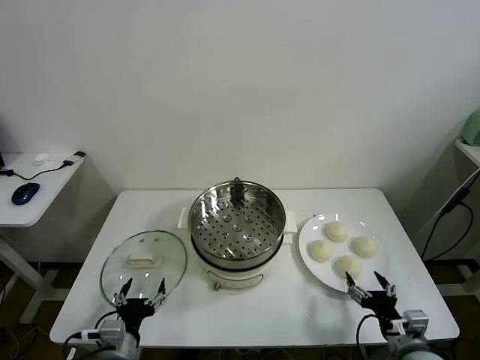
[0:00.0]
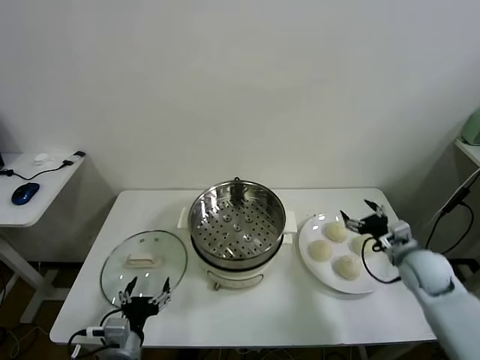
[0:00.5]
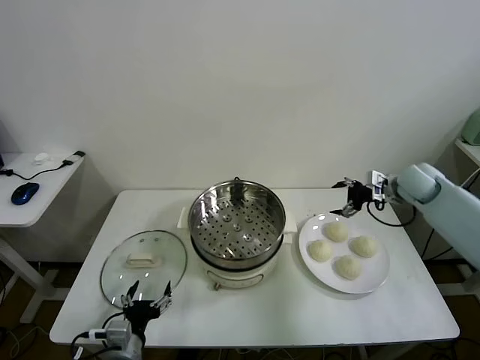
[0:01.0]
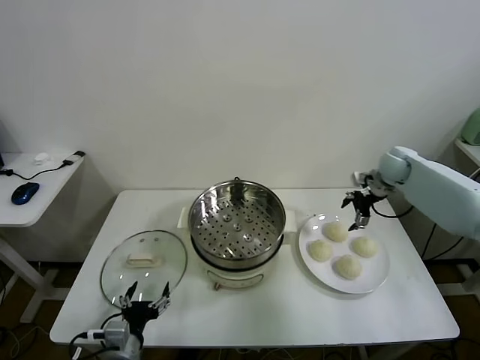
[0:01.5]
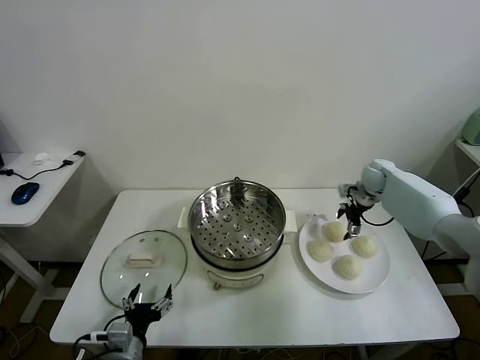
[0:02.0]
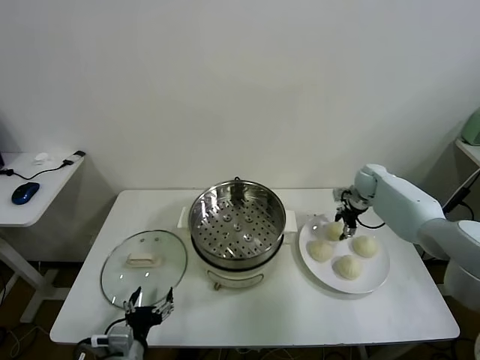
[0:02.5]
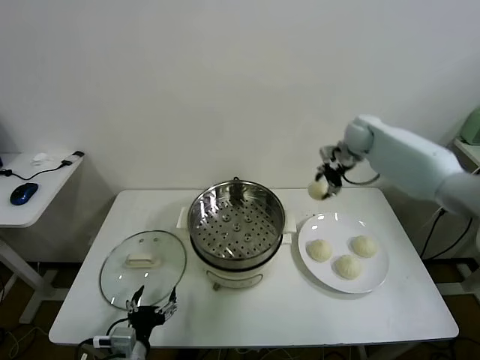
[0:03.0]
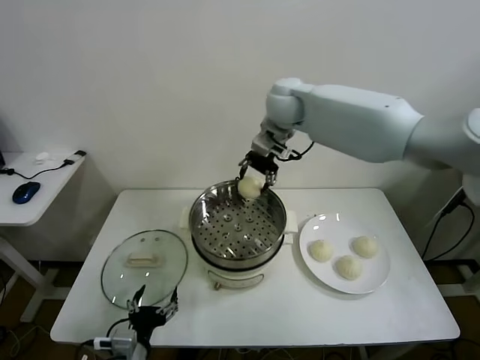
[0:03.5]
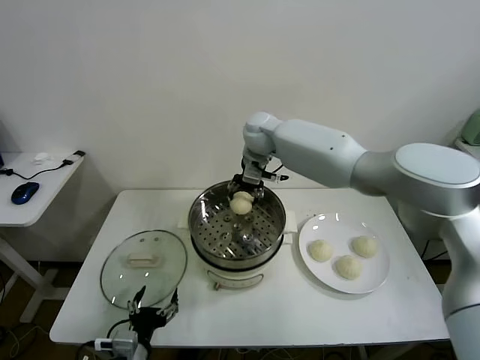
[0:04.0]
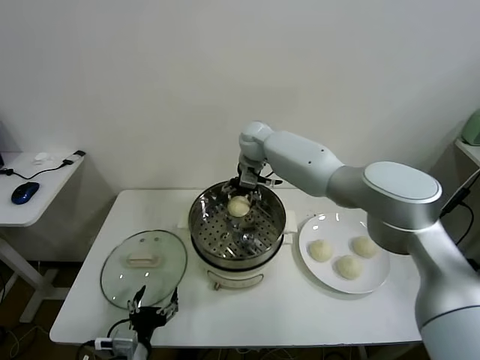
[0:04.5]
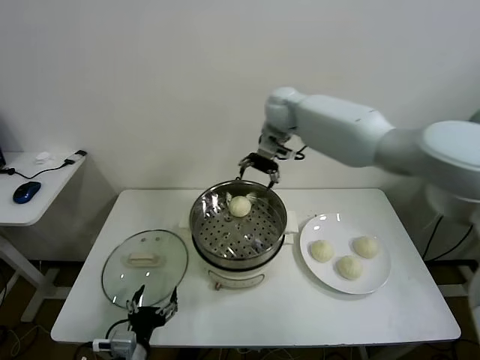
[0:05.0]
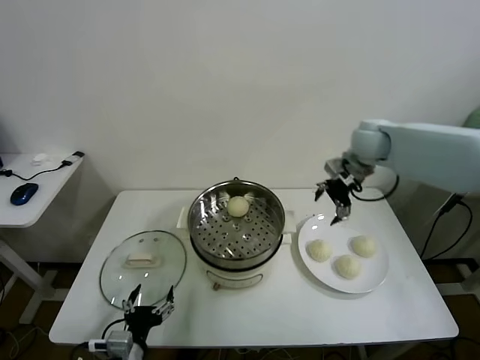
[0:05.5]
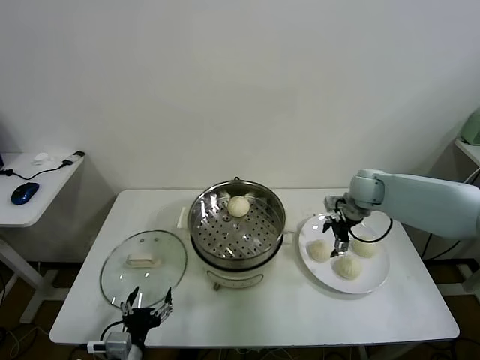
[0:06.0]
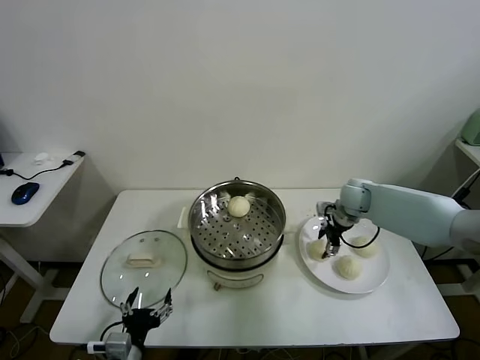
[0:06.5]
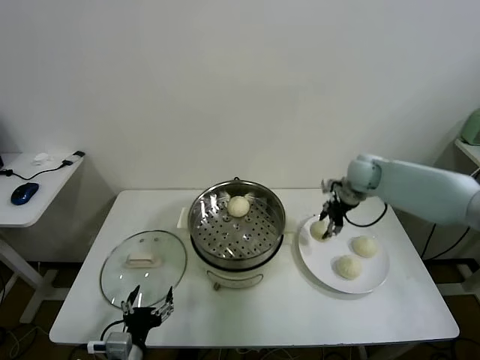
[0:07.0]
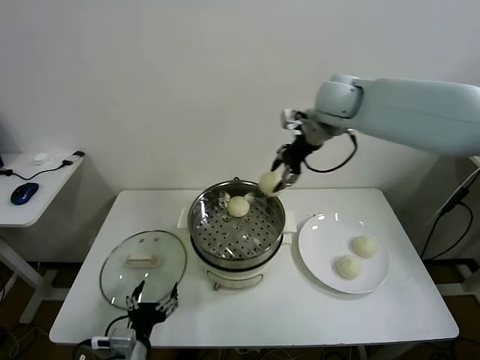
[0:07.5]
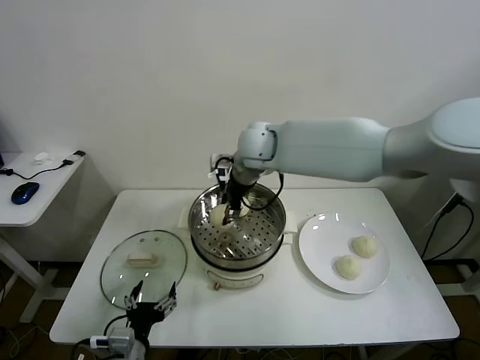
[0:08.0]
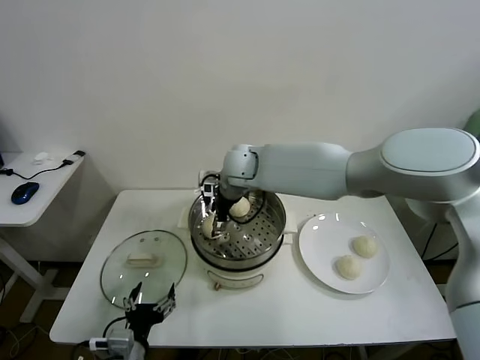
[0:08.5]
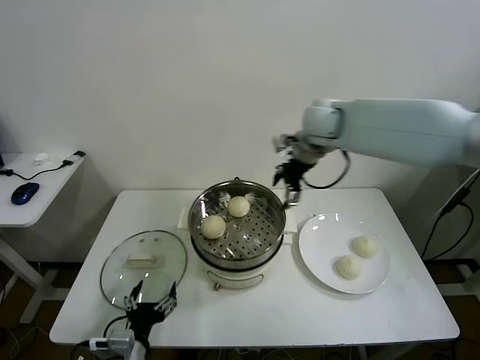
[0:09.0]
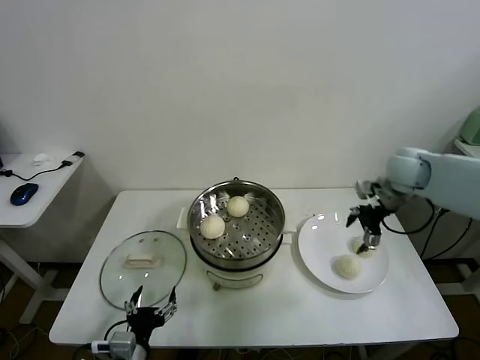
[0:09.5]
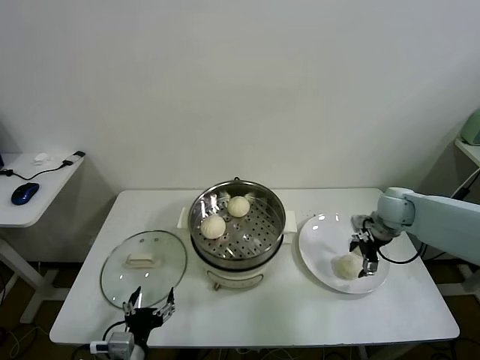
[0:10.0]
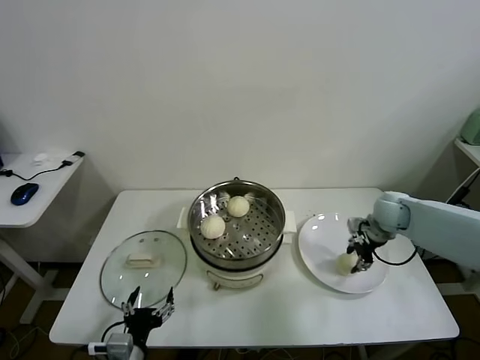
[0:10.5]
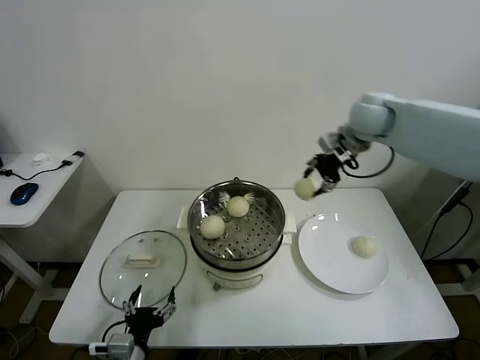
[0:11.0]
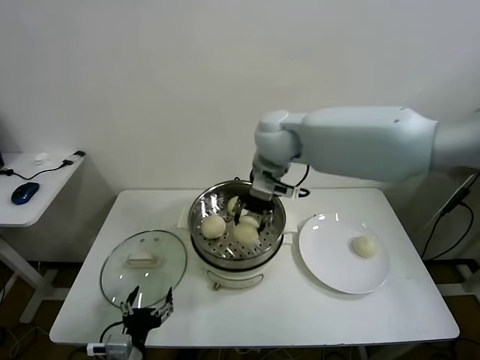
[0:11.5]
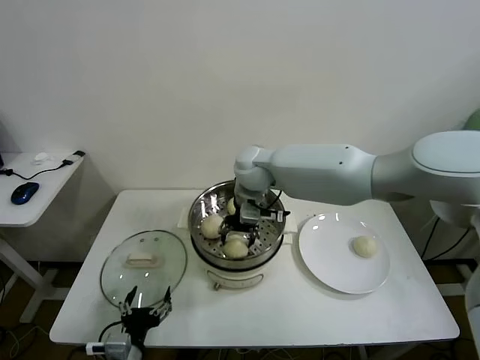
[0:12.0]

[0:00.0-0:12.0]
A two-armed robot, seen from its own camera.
Task of the whole recording: take steamed baozi put them in steamer.
Step, 0:00.0 to 0:02.5: Grasp the baozi in the plate with right gripper.
Step, 0:03.0 to 0:04.5: Place the baozi on the steamer with right gripper.
Step, 0:05.0 to 0:06.5: Grasp the baozi in the plate with right gripper.
Step, 0:07.0 to 0:08.5: Place the baozi on the steamer with right gripper.
Step, 0:09.0 to 0:10.0: Grasp the baozi in the plate with right gripper.
0:02.0 to 0:04.0: The right gripper goes some 35 cm to the left and upward, and closes its fingers.
0:04.0 to 0:06.0: The right gripper shifts about 30 cm to the right and downward, and opens up.
0:06.0 to 0:08.0: The right gripper heads to the left and upward, covering about 30 cm, and closes.
0:08.0 to 0:10.0: The right gripper moves to the right and downward, approximately 40 cm, and opens its fingers.
0:10.0 to 0:12.0: The right gripper goes roughly 35 cm to the left, and closes.

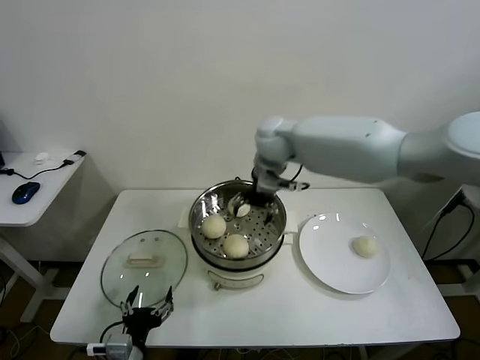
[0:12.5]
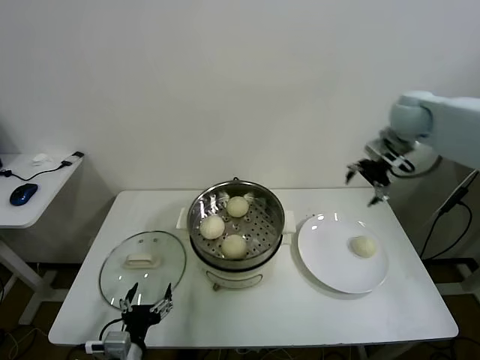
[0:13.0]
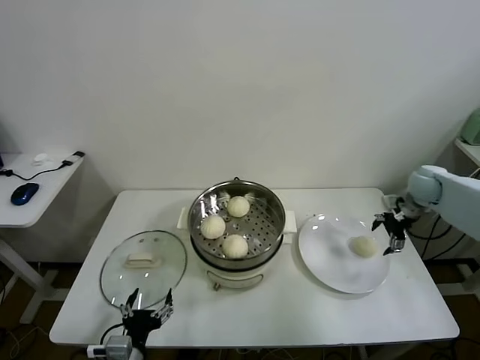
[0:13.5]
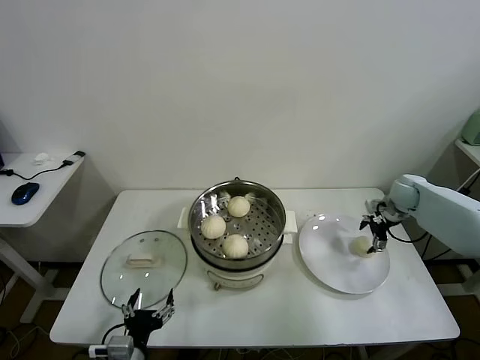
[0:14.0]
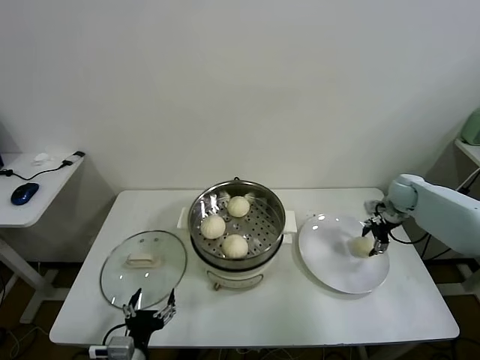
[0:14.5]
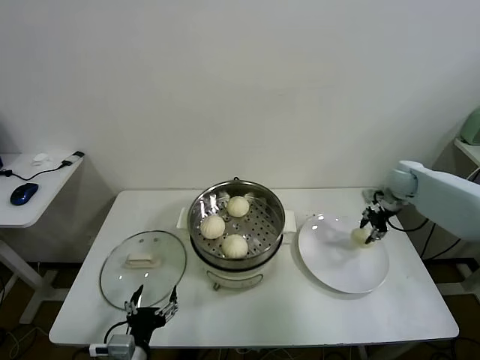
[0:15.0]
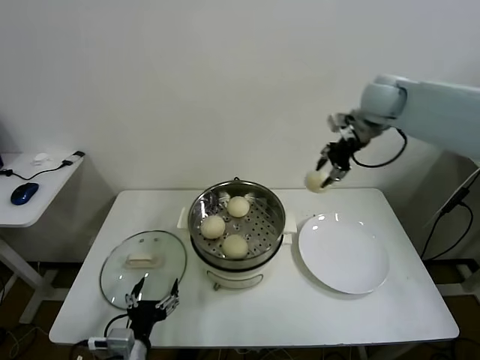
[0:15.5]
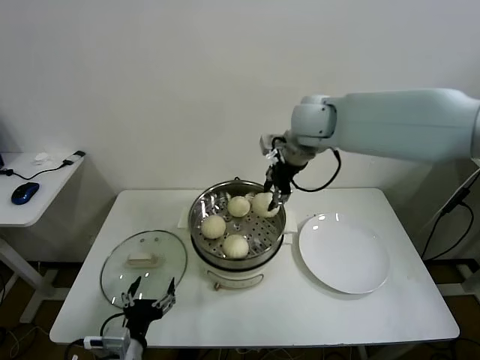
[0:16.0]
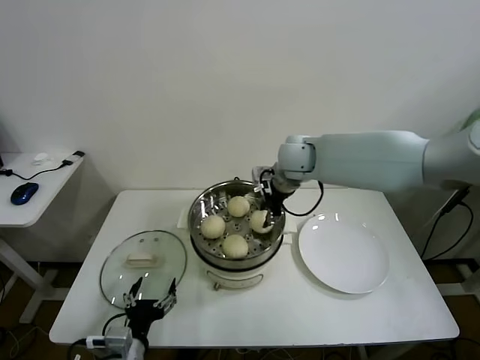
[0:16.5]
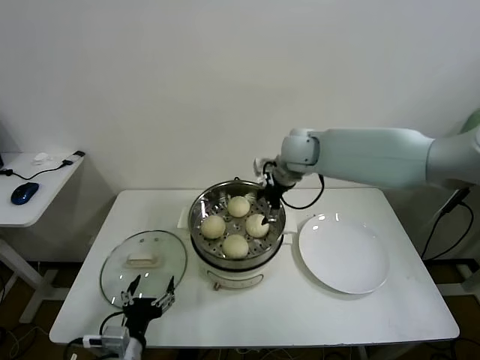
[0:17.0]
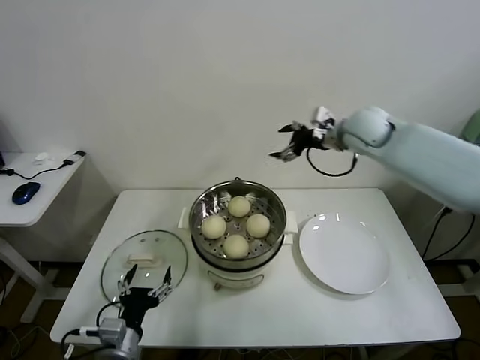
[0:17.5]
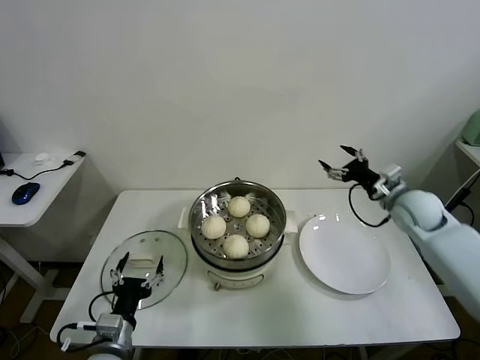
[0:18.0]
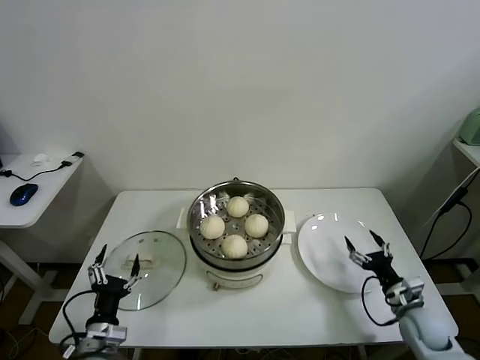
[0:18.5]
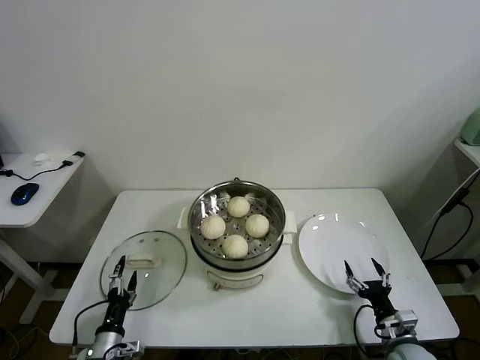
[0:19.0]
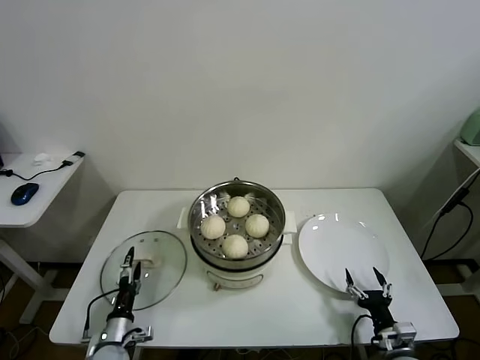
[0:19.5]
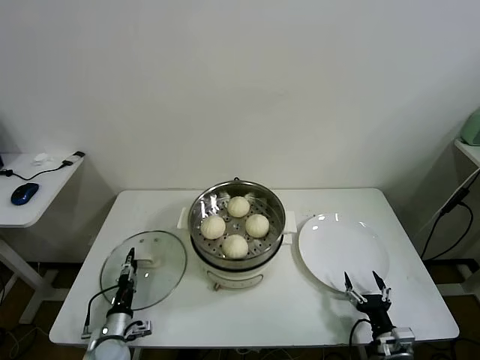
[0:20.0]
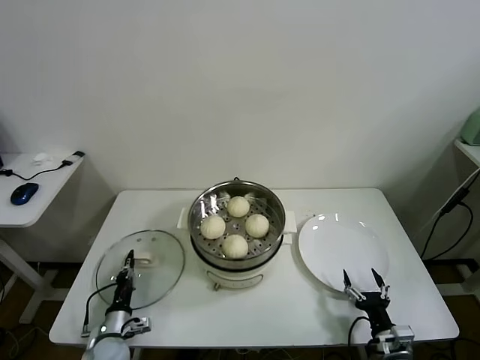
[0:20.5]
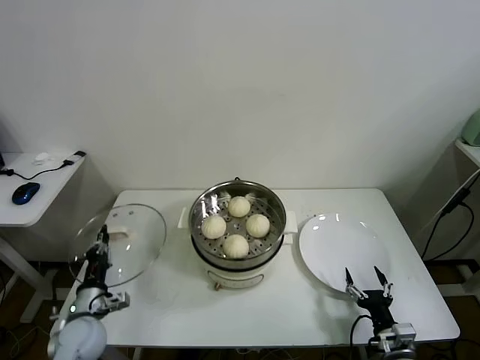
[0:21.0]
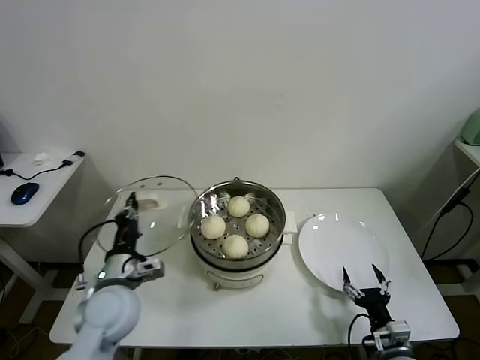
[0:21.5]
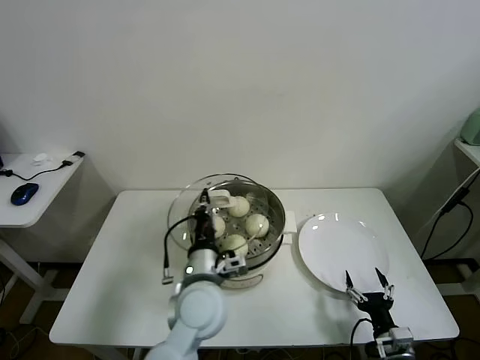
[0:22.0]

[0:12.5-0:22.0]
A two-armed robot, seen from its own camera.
Task of the whole recording: take steamed baozi put them in steamer.
Step, 0:12.5 to 0:14.5: Grasp the baozi in the plate with right gripper.
Step, 0:15.0 to 0:16.5: Place the baozi on the steamer with right gripper.
Step, 0:17.0 to 0:20.0: Grasp the pot lid with left gripper.
0:12.5 to 0:14.5: The right gripper moves to the right and downward, about 40 cm, and closes up.
0:14.5 to 0:16.5: The right gripper is displaced to the left and upward by approximately 35 cm, and closes.
0:16.5 to 0:18.0: The right gripper shifts some 25 cm to the right, and opens its fingers.
0:18.0 to 0:20.0: The right gripper moves backward and downward, approximately 40 cm. The left gripper goes about 15 cm downward and to the left, and closes up.
0:20.0 to 0:22.0: The left gripper heads upward and to the right, covering roughly 35 cm, and closes up.

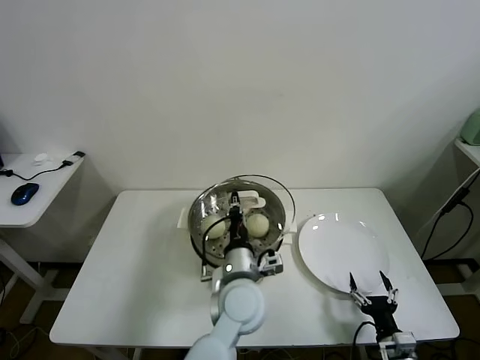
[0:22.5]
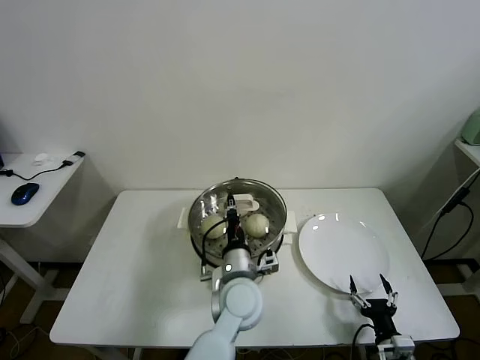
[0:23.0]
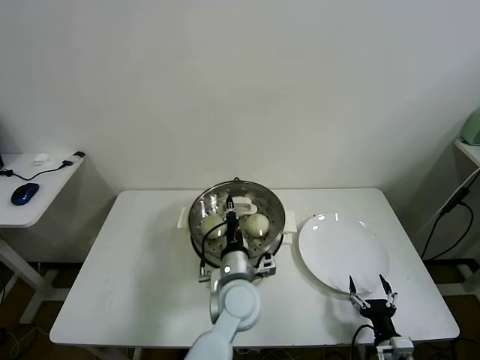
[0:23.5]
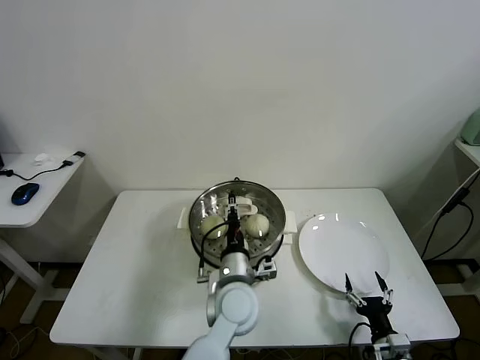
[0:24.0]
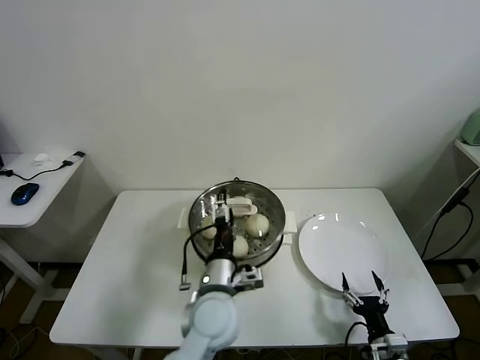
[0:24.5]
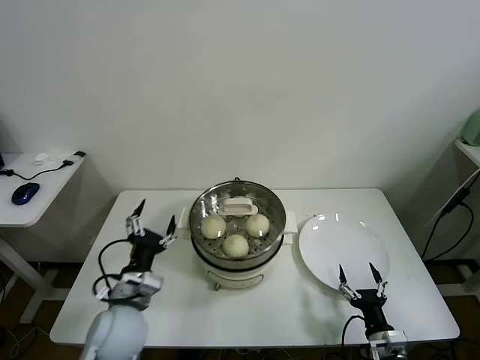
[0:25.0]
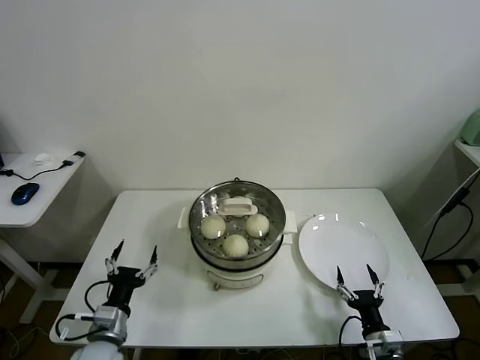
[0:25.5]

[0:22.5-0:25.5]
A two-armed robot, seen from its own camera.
Task of the whole recording: take steamed baozi put them in steamer.
0:22.5 to 0:24.0: There are only small adjustments of the grippers.
0:24.0 to 0:25.5: The left gripper heads to the left, covering some 30 cm, and opens its fingers.
